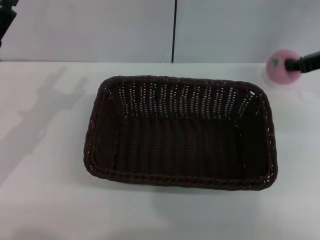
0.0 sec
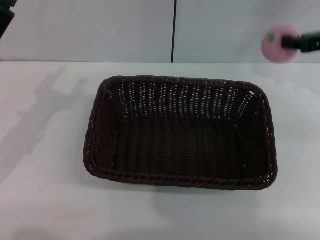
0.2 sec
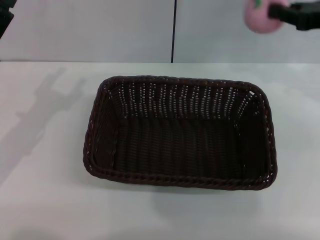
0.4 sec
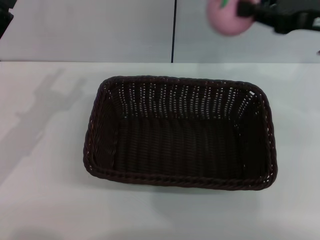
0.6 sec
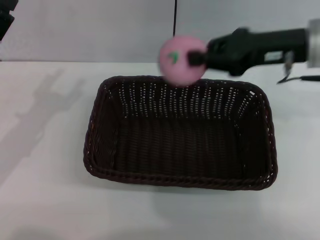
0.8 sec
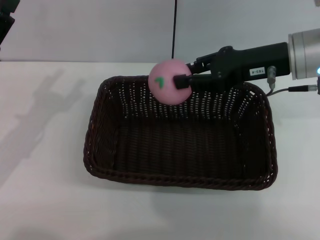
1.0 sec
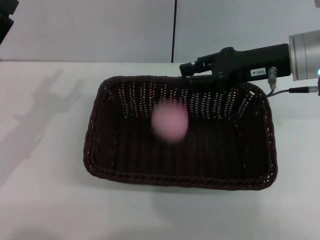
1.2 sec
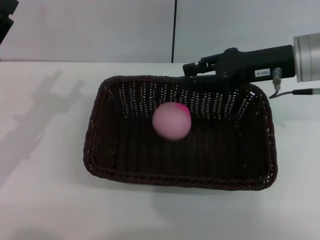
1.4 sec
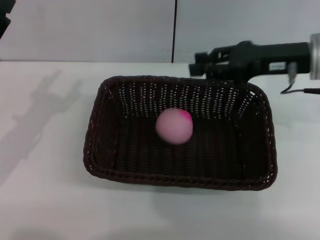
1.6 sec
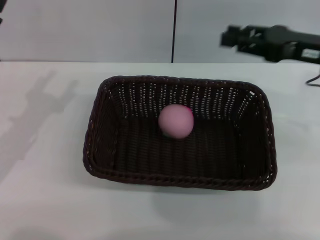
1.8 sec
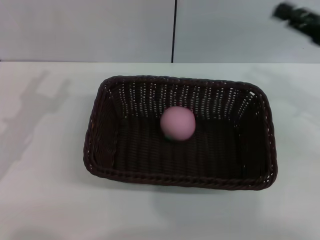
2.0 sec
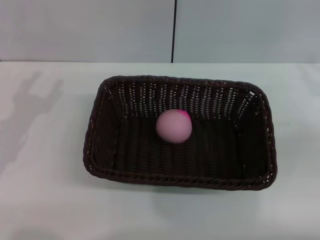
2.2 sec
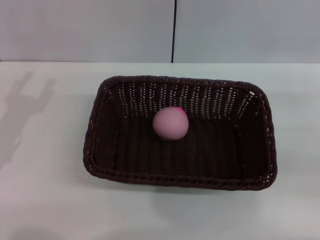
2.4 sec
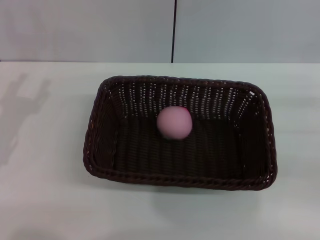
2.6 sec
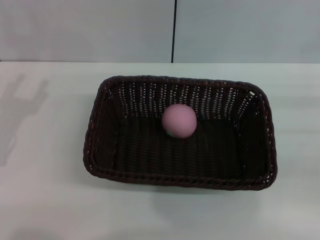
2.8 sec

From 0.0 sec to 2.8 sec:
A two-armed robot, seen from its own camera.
From 0.0 sec to 1.4 sec: The right gripper travels to the left by approximately 10 cm, and opens up.
From 1.4 sec to 2.8 sec: The right gripper is displaced to the right, backward and downward by roughly 25 cm.

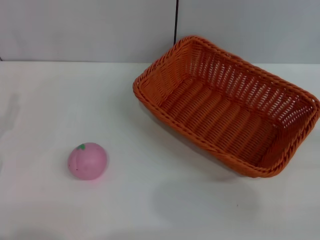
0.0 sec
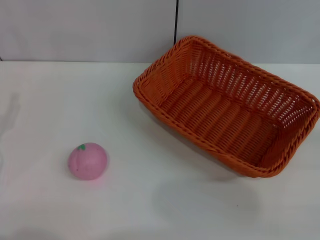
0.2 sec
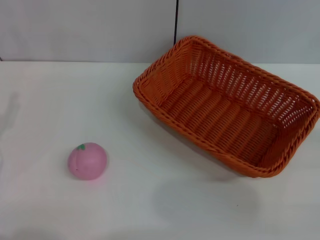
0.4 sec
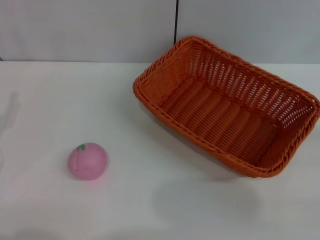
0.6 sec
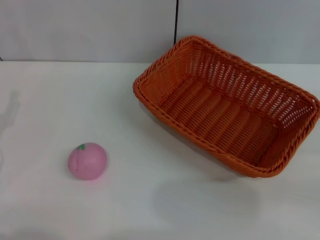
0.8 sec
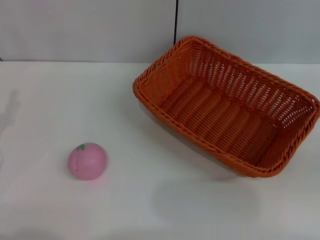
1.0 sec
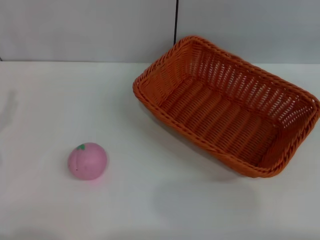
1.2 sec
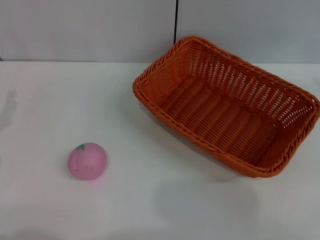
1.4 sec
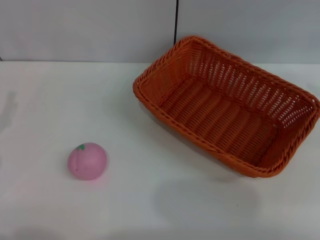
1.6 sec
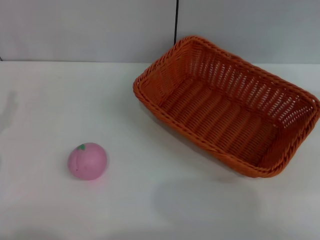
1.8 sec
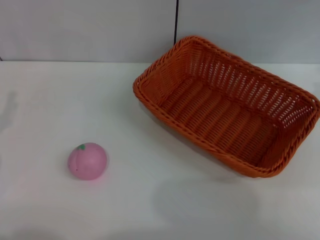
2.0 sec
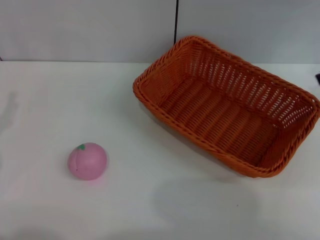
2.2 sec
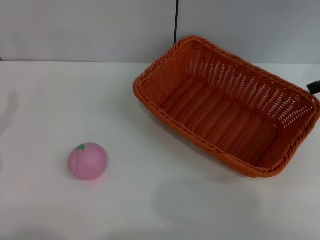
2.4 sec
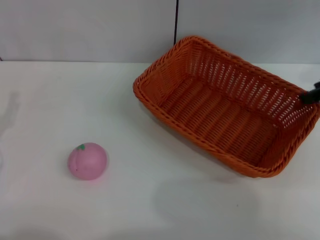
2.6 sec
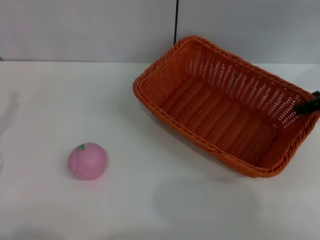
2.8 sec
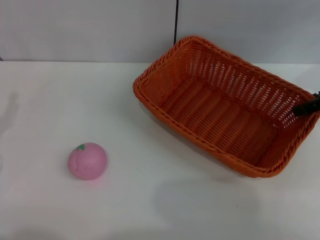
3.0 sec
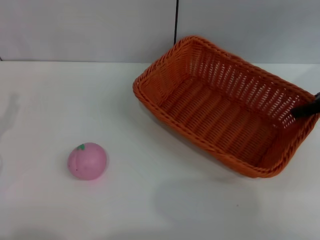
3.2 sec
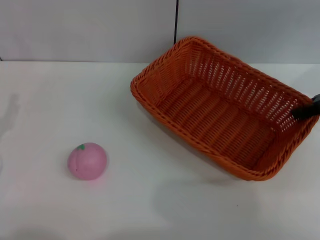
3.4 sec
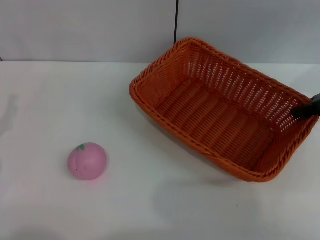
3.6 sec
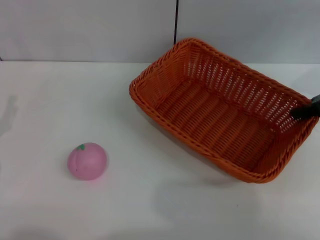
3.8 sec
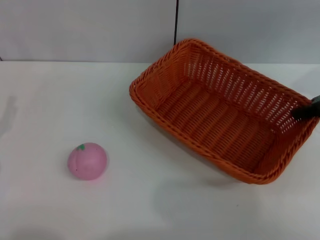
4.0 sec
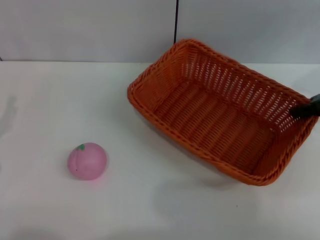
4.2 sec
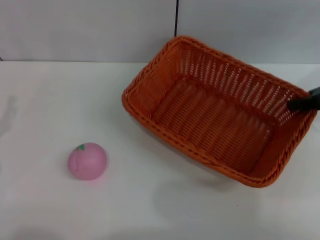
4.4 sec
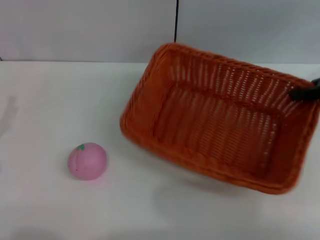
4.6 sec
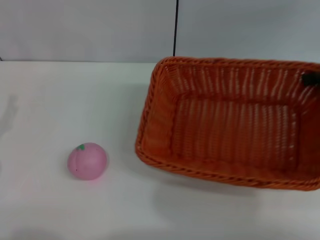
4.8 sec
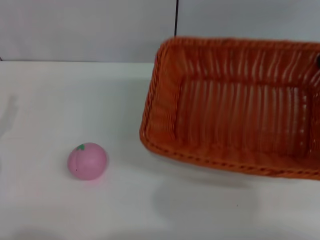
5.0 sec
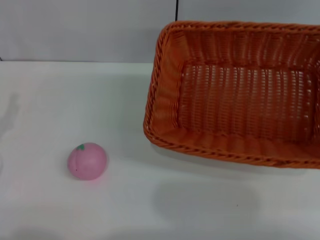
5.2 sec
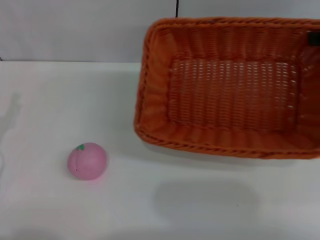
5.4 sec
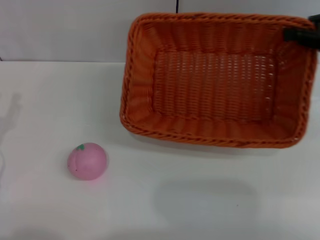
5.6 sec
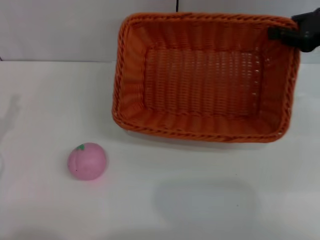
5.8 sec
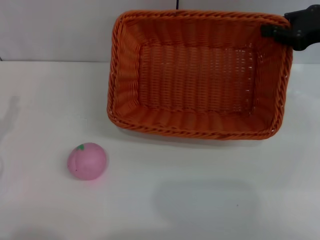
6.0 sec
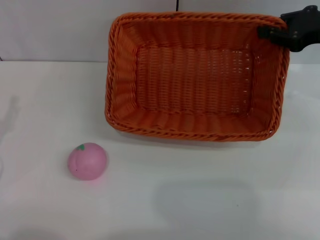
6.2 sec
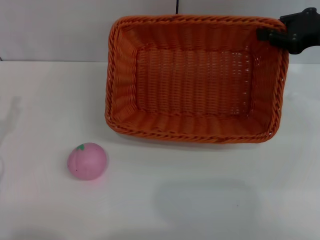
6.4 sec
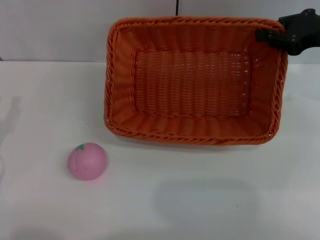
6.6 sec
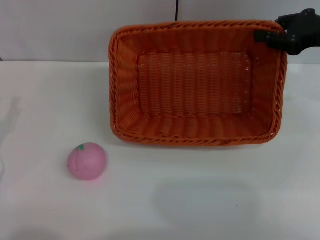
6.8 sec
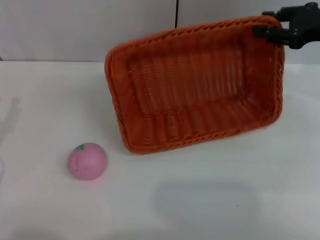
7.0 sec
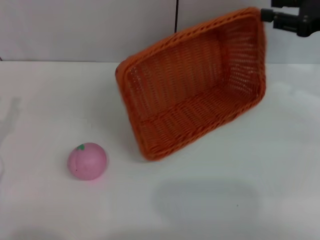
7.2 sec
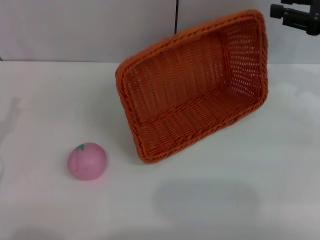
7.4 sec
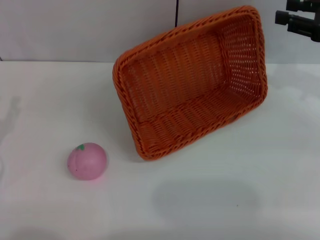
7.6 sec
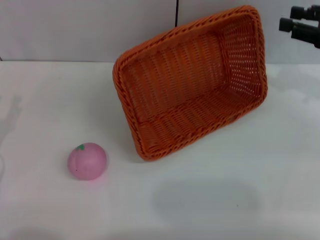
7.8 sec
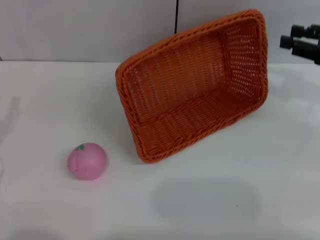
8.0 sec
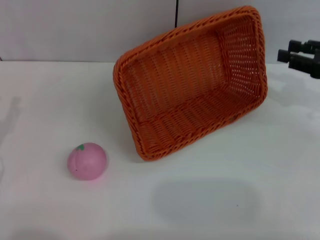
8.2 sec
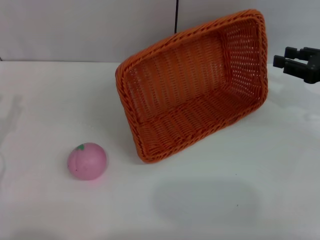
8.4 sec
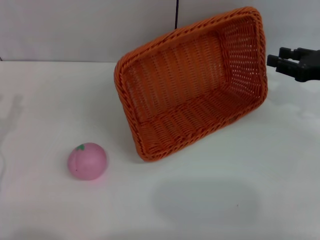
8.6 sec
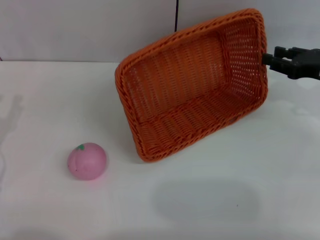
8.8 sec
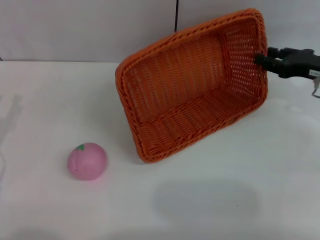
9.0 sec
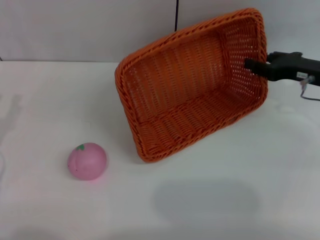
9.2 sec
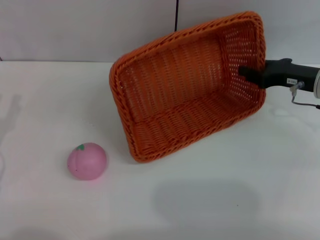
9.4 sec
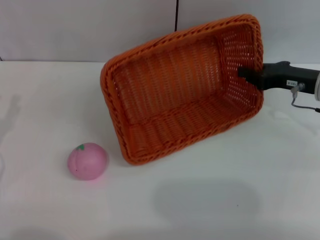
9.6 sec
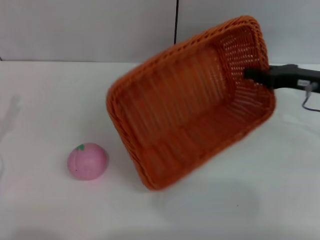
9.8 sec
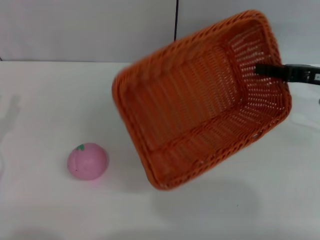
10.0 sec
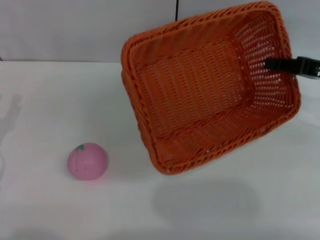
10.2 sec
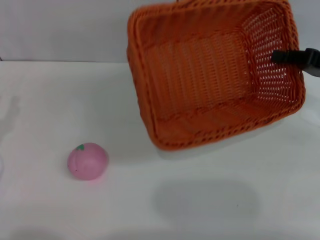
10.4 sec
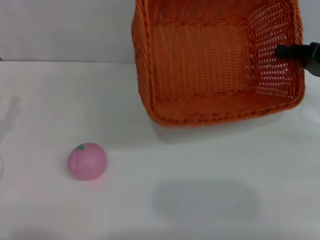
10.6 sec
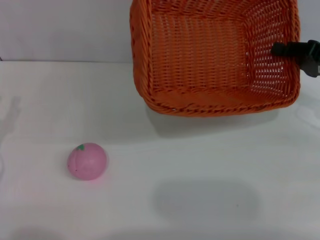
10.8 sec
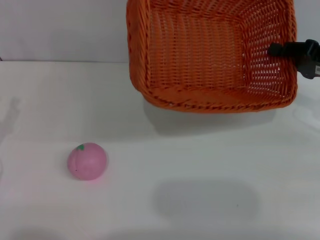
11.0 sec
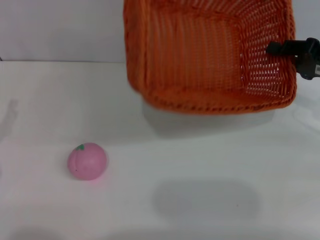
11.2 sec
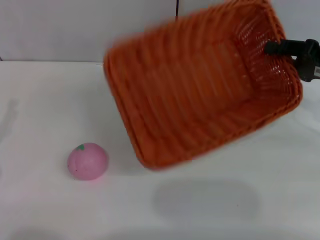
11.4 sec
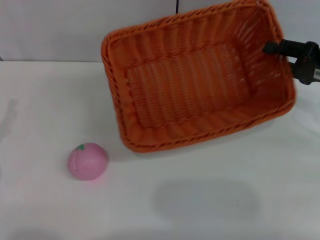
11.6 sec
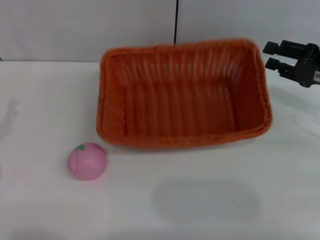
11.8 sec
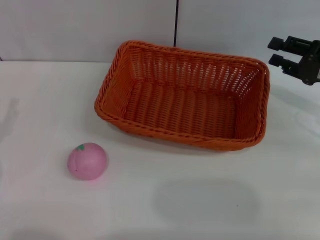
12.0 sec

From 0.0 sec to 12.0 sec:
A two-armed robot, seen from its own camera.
Step, from 0.0 sec to 4.6 sec: Pick up the light basket with the right gripper.
From 3.0 sec to 4.4 sec: The right gripper closes up.
From 6.0 sec to 7.6 sec: The right gripper opens up.
From 7.6 sec to 9.0 sec: The right gripper goes some 10 cm downward.
From 9.0 sec to 10.4 sec: The right gripper closes.
From 10.4 sec to 12.0 sec: The right gripper opens up.

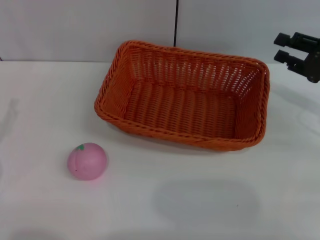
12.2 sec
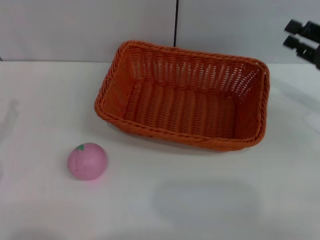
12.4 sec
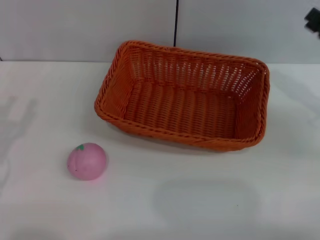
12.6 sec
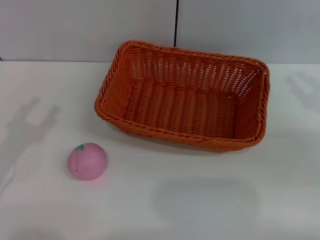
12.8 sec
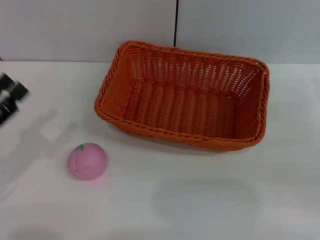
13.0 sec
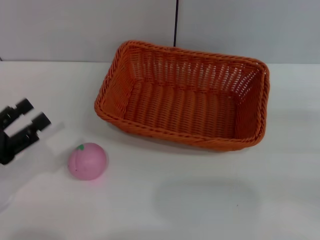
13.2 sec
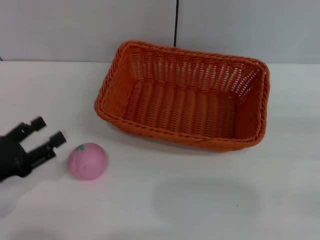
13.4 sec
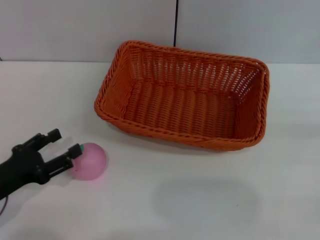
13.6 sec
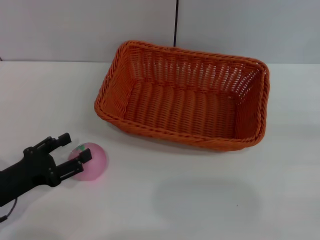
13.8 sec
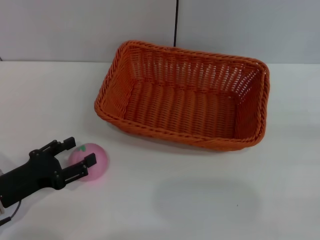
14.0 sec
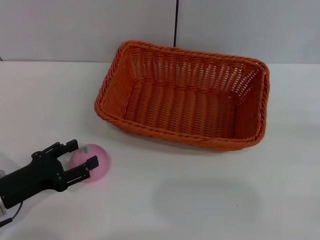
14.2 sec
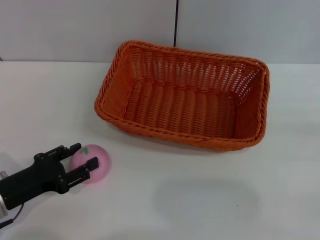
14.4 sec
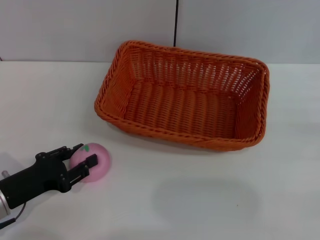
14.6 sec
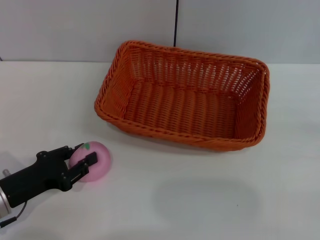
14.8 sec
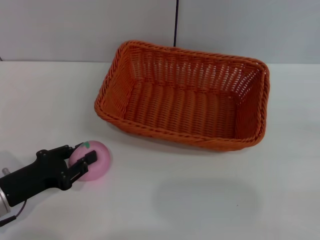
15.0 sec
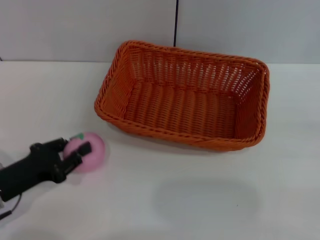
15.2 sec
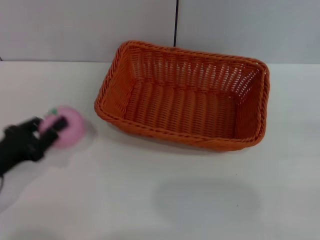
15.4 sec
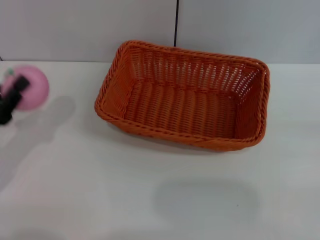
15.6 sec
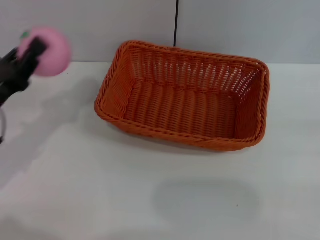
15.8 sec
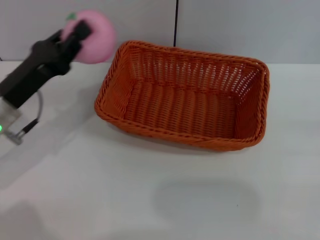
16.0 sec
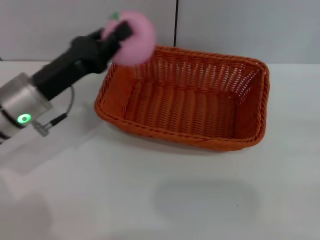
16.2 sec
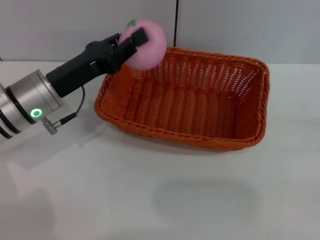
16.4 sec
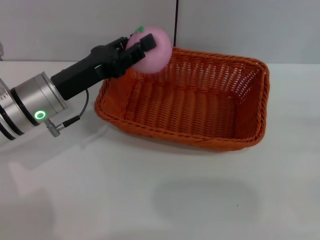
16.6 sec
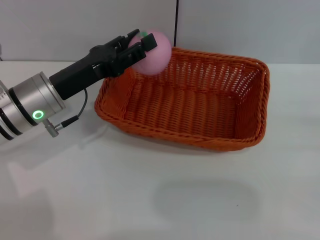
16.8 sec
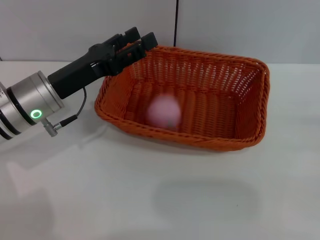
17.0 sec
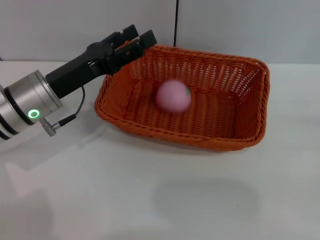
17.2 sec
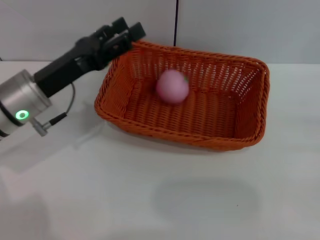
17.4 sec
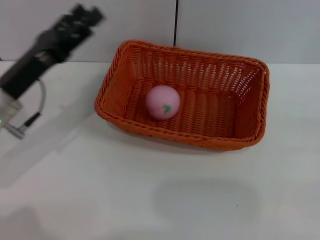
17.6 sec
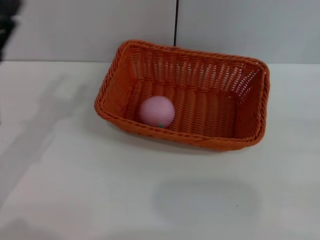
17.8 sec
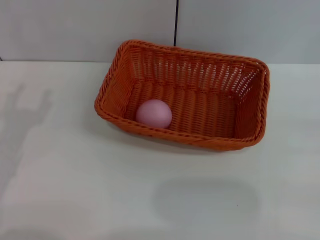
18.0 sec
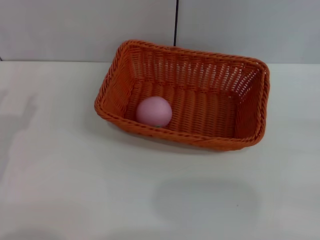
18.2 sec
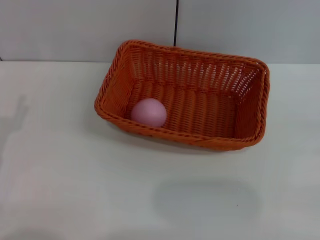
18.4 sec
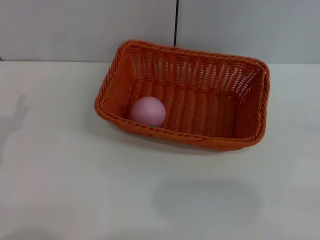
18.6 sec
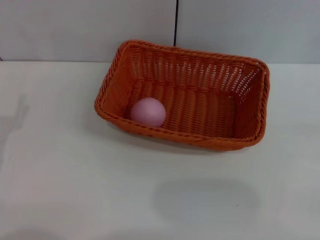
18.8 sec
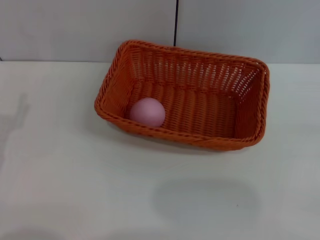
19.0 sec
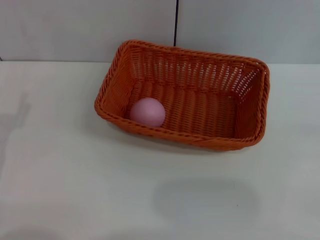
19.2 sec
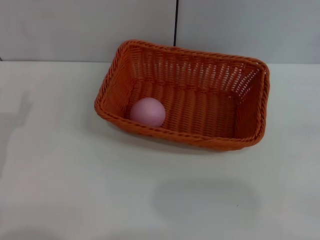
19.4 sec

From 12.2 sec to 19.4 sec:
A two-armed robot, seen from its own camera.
Step, from 12.6 sec to 15.6 sec: Pick up the peach with the left gripper.
Step, from 15.8 sec to 17.2 sec: Place the peach into the basket with the left gripper.
From 12.2 sec to 13.6 sec: The right gripper goes about 15 cm backward and to the right.
From 13.6 sec to 15.0 sec: The left gripper closes its fingers.
From 15.0 sec to 16.6 sec: The left gripper heads forward, to the right and upward, covering approximately 15 cm.
From 16.6 sec to 18.0 sec: The left gripper shifts roughly 15 cm backward and to the left, and opens.
